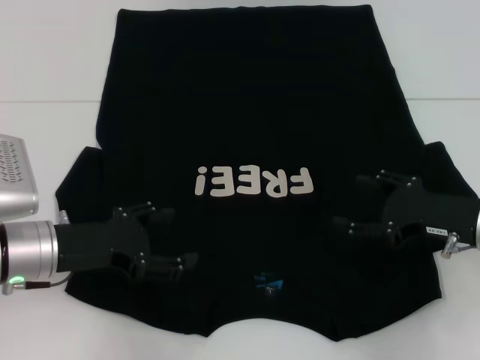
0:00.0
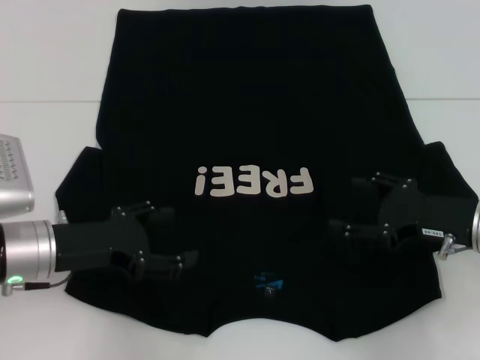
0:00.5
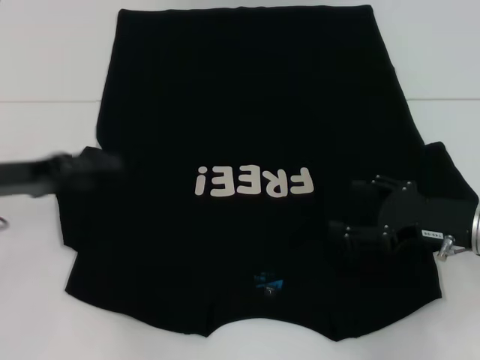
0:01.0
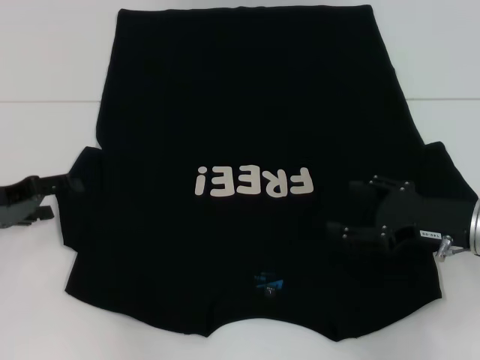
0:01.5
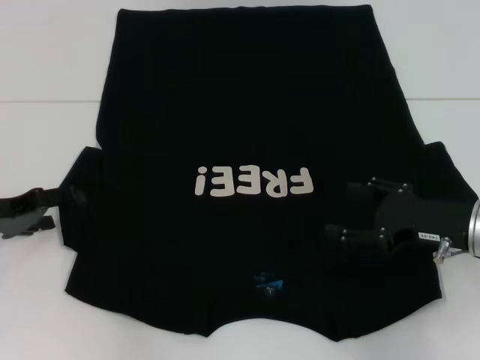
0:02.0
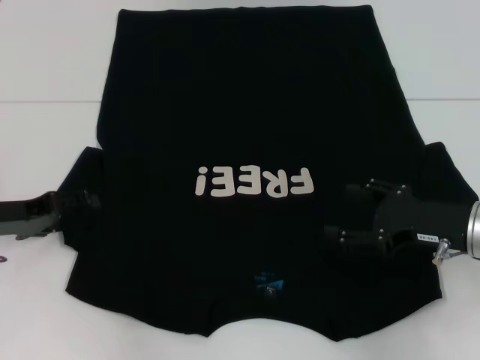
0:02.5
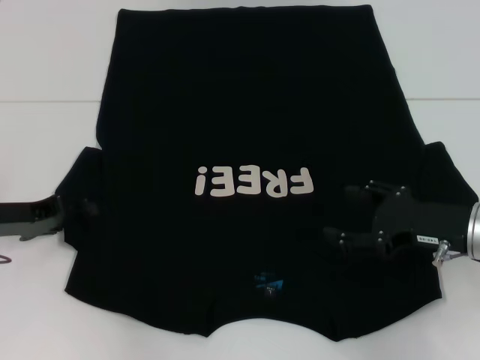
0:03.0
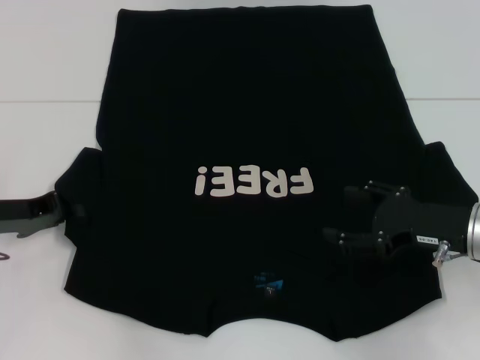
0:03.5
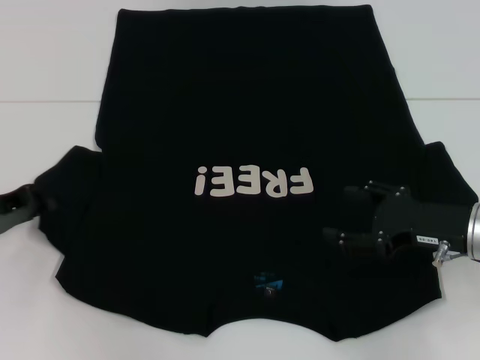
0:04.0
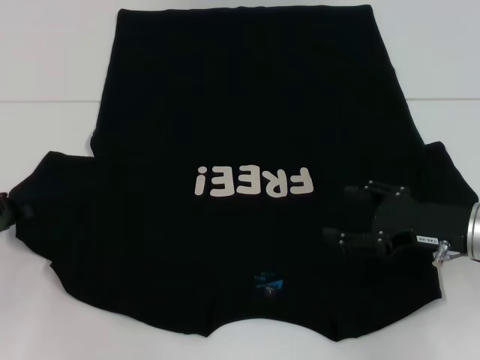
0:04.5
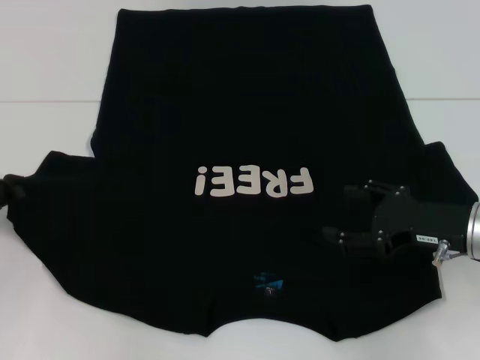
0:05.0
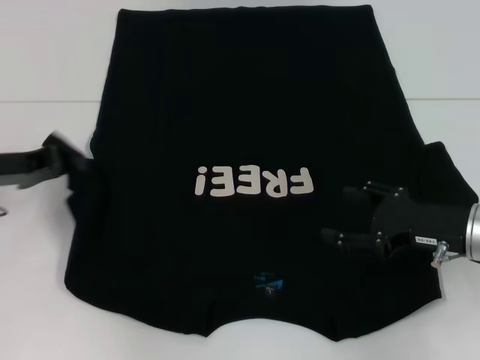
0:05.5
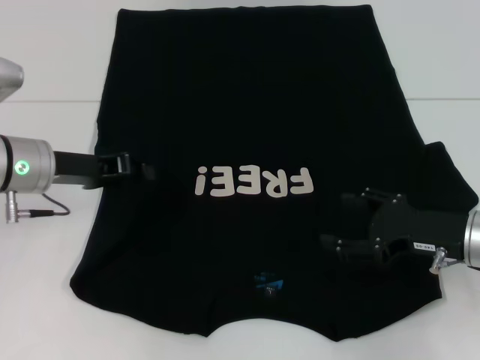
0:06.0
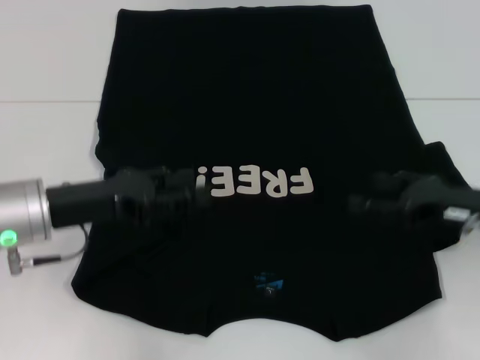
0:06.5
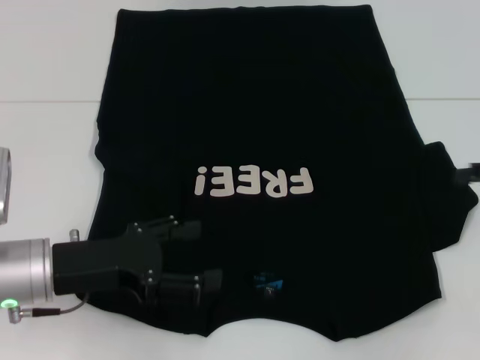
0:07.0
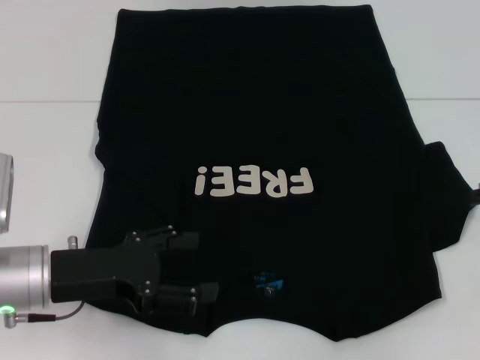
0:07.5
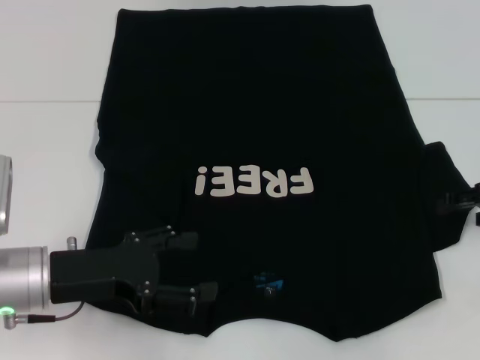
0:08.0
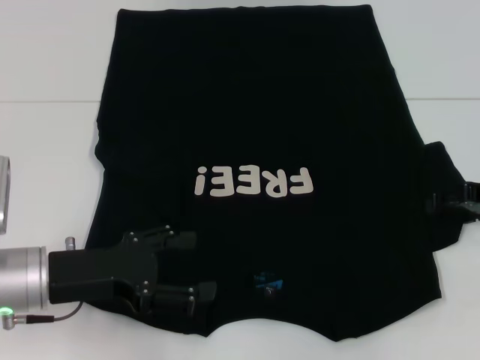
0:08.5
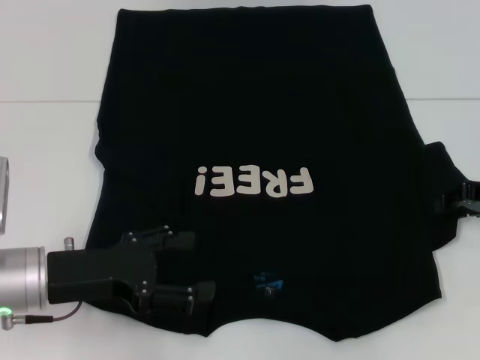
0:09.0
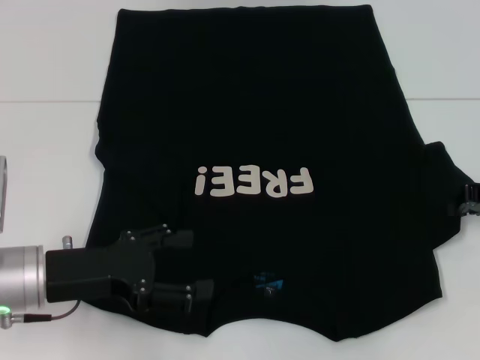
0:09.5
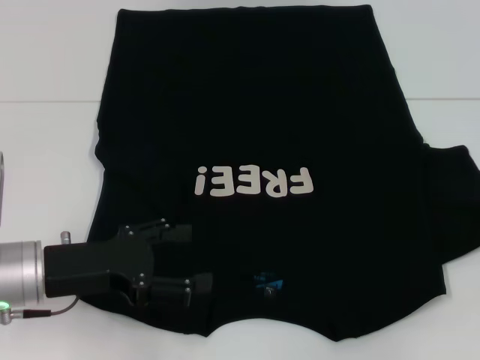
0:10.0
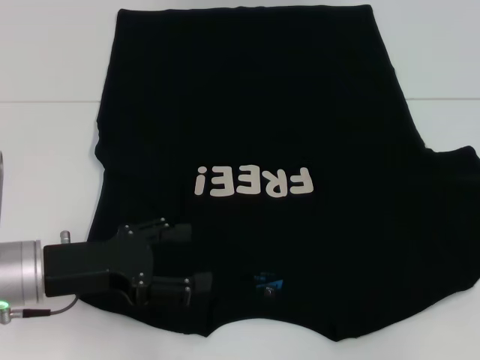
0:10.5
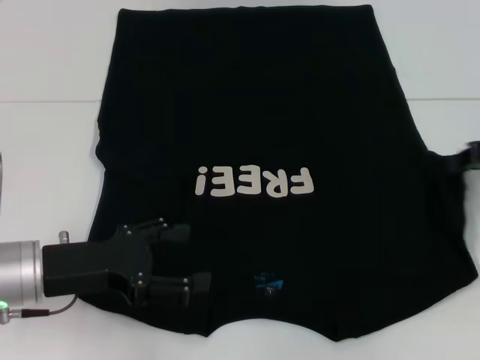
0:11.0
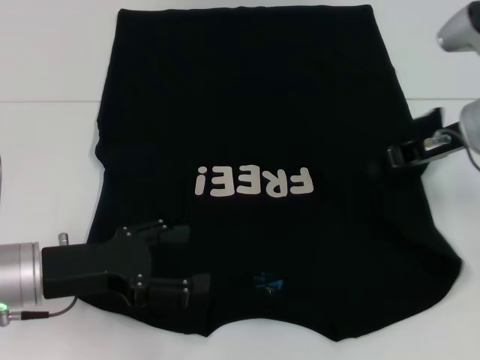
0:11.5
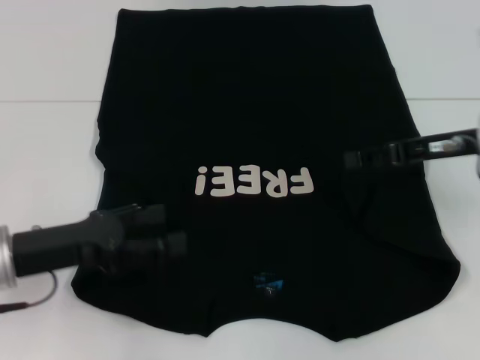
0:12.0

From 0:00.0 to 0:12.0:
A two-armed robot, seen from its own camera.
Step, from 0:00.0 to 0:05.5: Fold the bottom left sleeve with your left hand.
Step, from 0:06.0 to 0:12.0: Fold the bottom right sleeve with your right hand.
From 0:00.0 to 0:02.0: The left gripper shifts approximately 10 cm to the left.
From 0:02.0 to 0:04.0: The left gripper closes.
From 0:04.0 to 0:06.0: The left gripper heads to the right, covering about 10 cm.
From 0:06.0 to 0:08.0: The left gripper goes roughly 10 cm backward, and opens its fingers, while the right gripper moves to the right, forward and upward, about 10 cm.
From 0:08.0 to 0:10.0: The right gripper closes.
From 0:10.0 to 0:12.0: The right gripper travels to the left by about 10 cm.

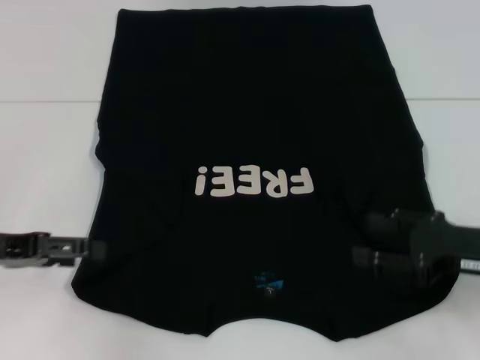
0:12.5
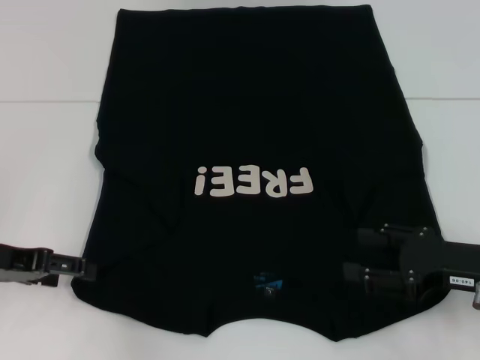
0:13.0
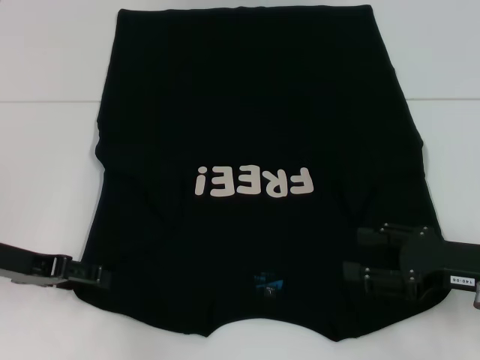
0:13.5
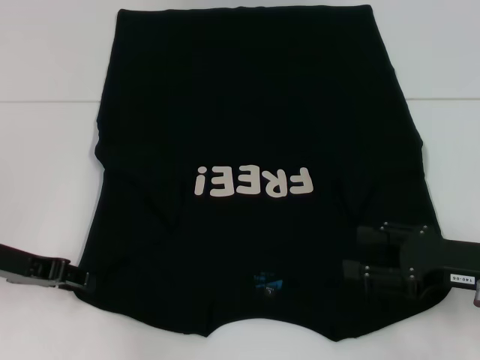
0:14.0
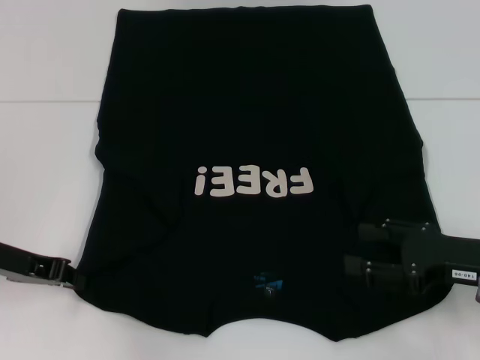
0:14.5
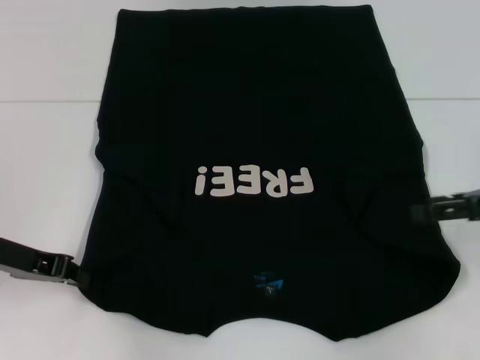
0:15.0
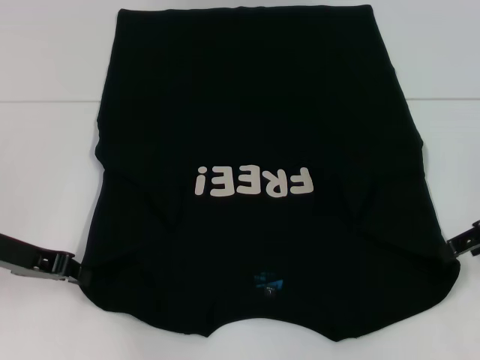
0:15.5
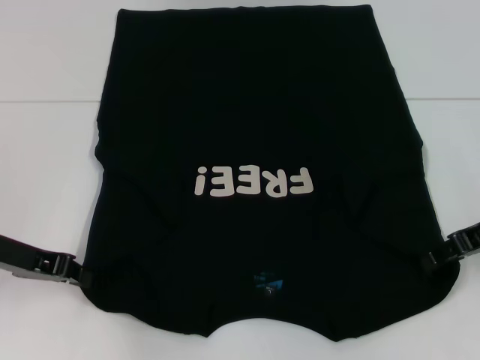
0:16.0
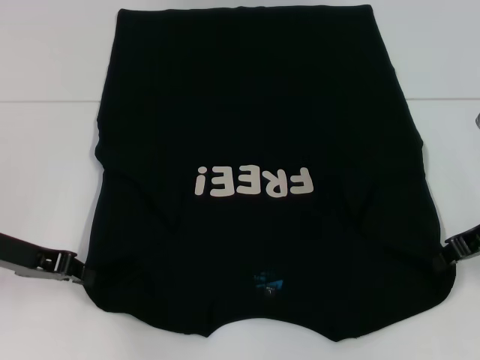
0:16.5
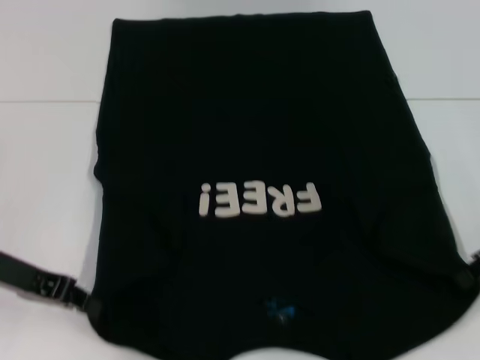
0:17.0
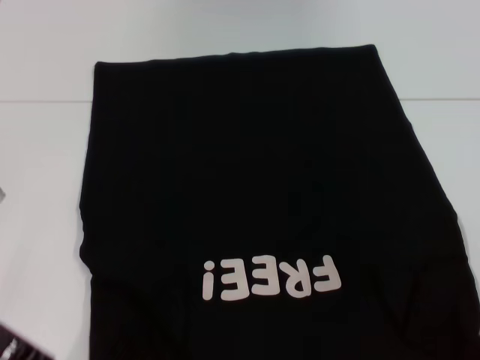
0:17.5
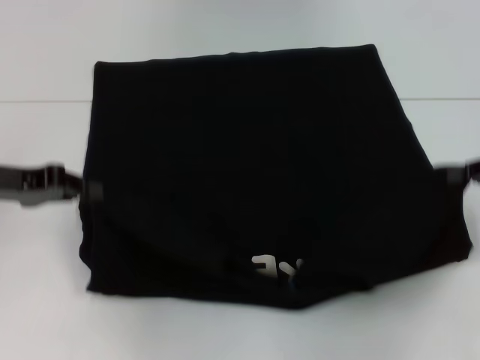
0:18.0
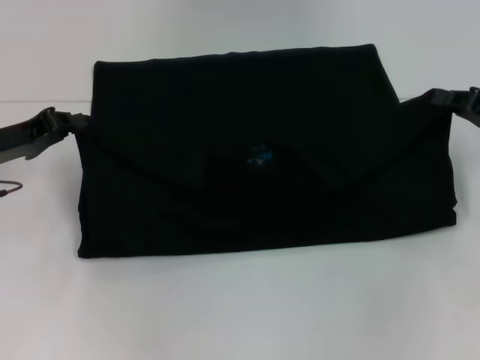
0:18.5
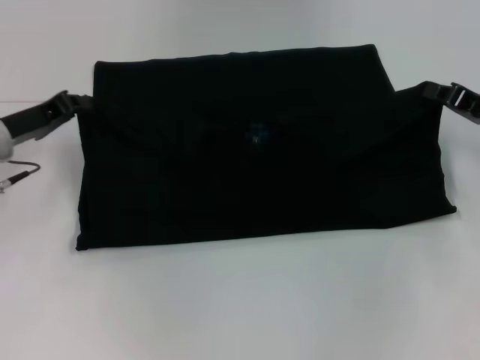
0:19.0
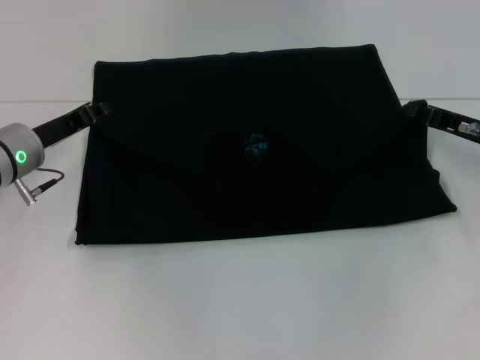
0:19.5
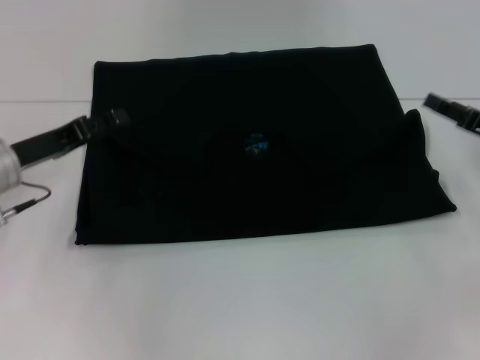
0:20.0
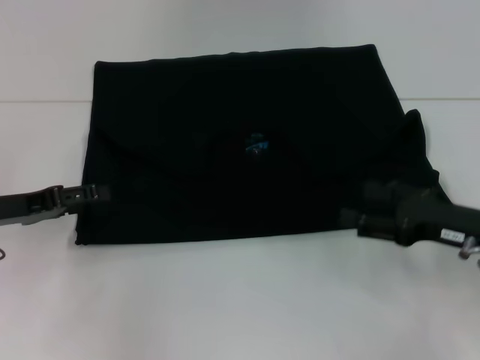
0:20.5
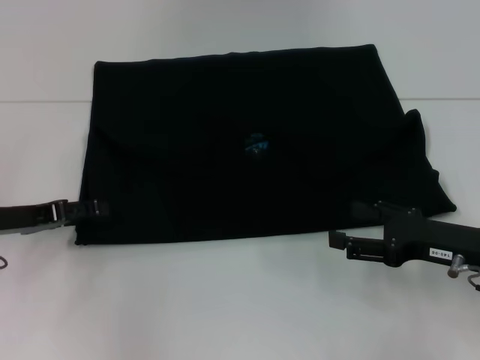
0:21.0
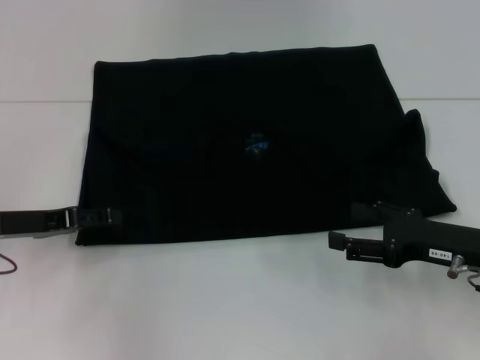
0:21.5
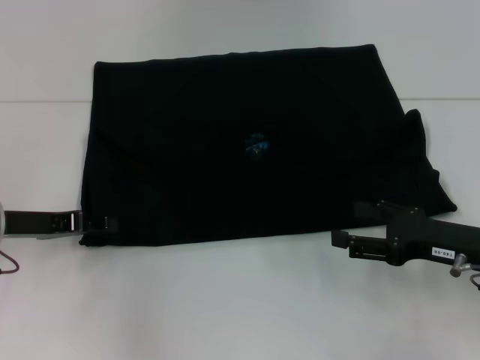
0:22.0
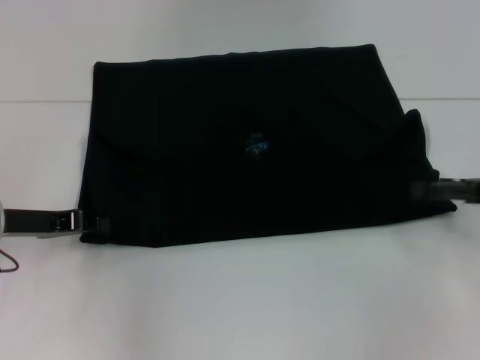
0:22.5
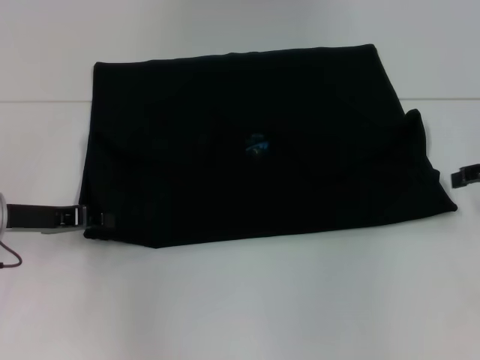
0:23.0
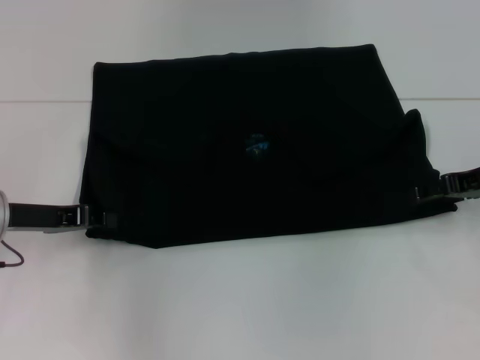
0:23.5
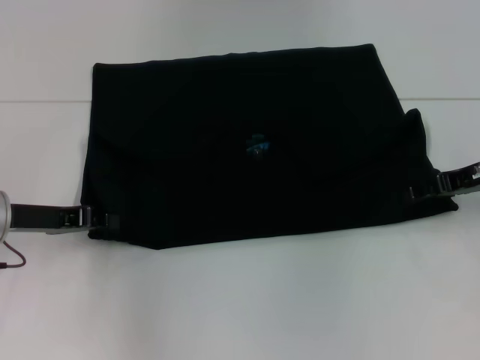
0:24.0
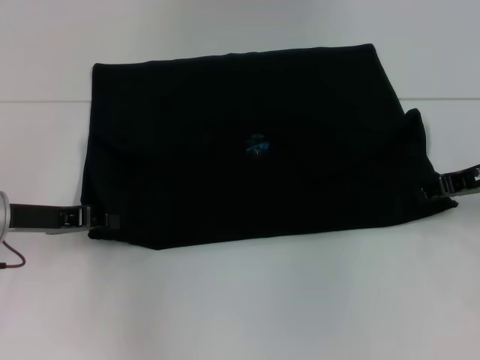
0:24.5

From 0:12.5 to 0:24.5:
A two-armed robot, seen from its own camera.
Step, from 0:12.5 to 0:14.5: Grab the bottom left corner with your left hand.
Step, from 0:15.0 to 0:16.5: Grab the bottom right corner with your right hand.
Step, from 0:17.0 to 0:19.5: Fold the clothes with your left hand.
Step, from 0:17.0 to 0:19.5: Fold the clothes with your right hand.
From 0:12.5 to 0:14.5: The left gripper closes its fingers.
From 0:14.5 to 0:16.5: The right gripper goes some 10 cm forward and upward, and closes.
From 0:18.5 to 0:20.5: The right gripper heads backward, to the left and downward, covering some 10 cm, and opens. The left gripper opens its fingers.
From 0:20.5 to 0:22.5: The right gripper shifts roughly 5 cm to the right. Meanwhile the left gripper closes.
From 0:22.5 to 0:24.5: The right gripper goes approximately 5 cm forward, and closes up.

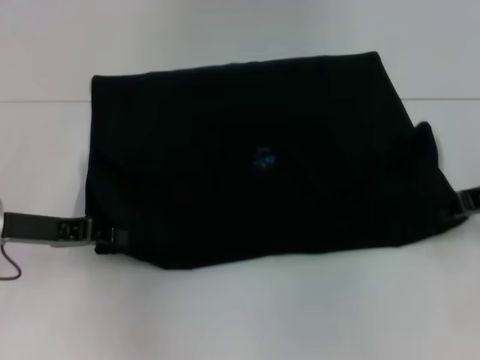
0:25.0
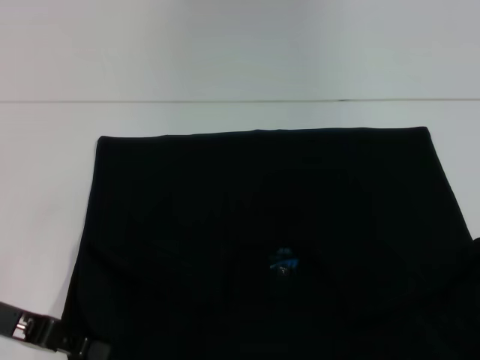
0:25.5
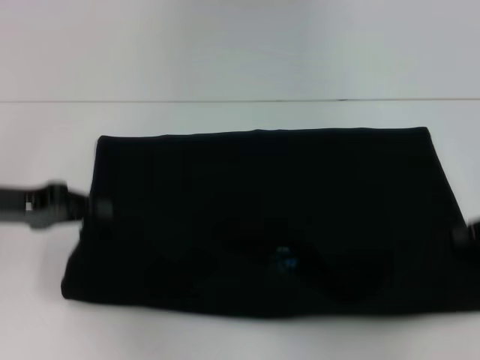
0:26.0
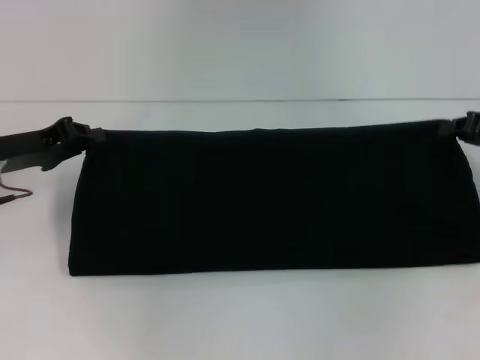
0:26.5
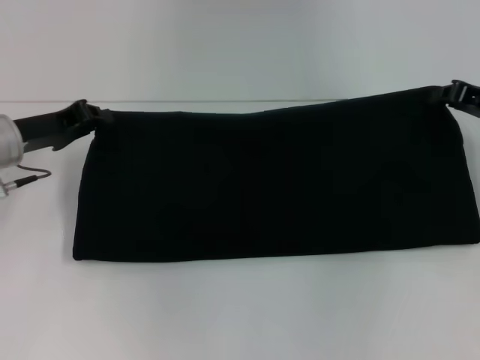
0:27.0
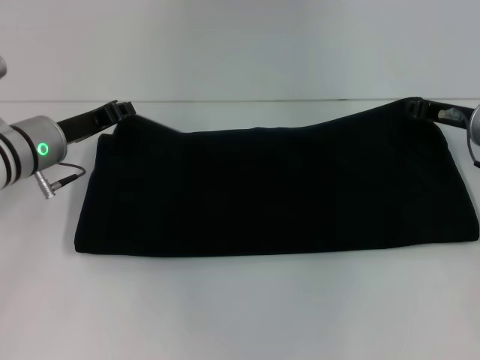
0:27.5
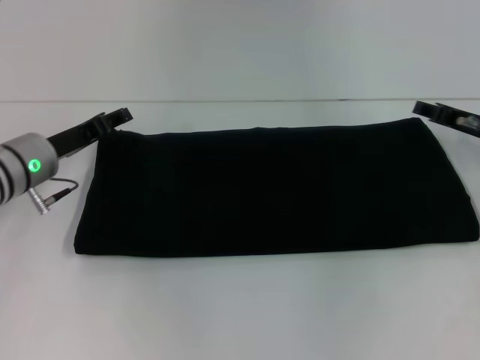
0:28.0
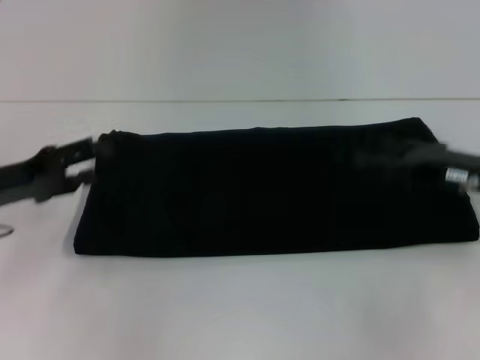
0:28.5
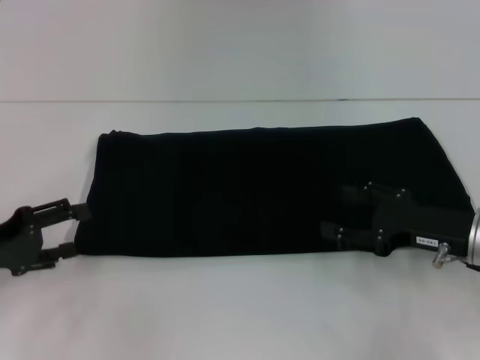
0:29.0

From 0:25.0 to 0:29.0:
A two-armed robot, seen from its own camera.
Step, from 0:25.5 to 0:27.5: Fold the clothes with your right hand.
From 0:25.0 to 0:27.0: The left gripper goes approximately 5 cm forward. The right gripper travels backward and back again, approximately 10 cm each way.
From 0:27.0 to 0:29.0: The left gripper travels backward and to the left by about 15 cm, and opens, while the right gripper shifts roughly 15 cm backward, downward and to the left, and opens its fingers.
